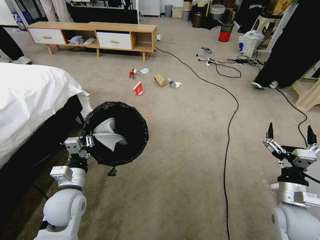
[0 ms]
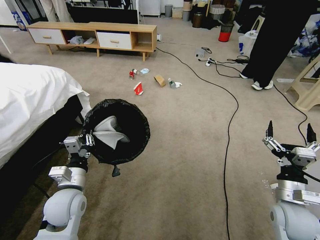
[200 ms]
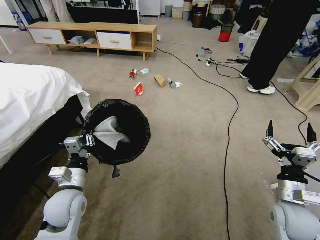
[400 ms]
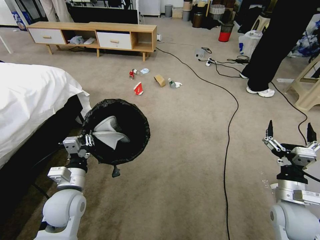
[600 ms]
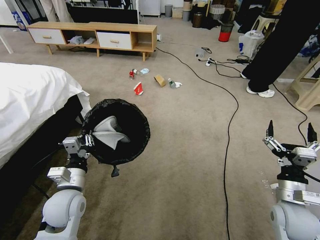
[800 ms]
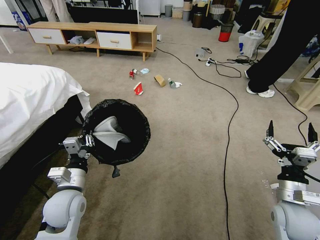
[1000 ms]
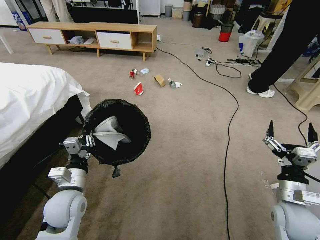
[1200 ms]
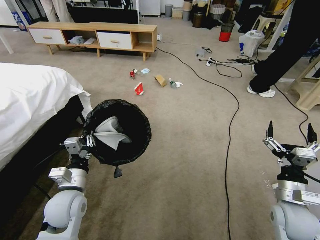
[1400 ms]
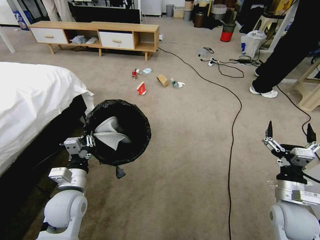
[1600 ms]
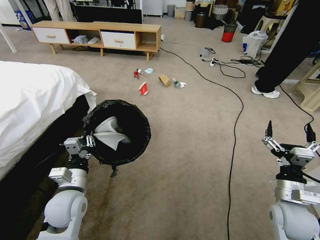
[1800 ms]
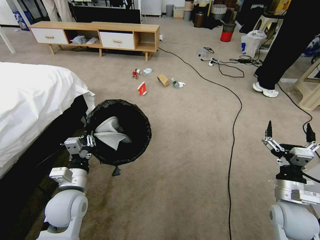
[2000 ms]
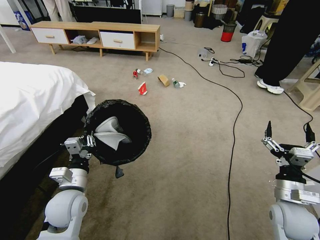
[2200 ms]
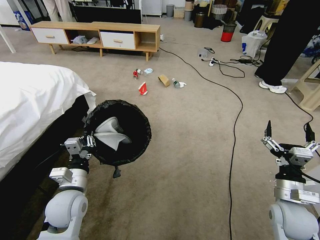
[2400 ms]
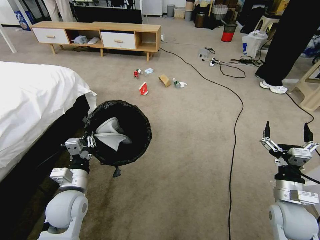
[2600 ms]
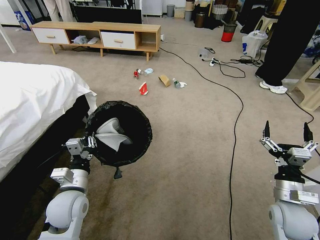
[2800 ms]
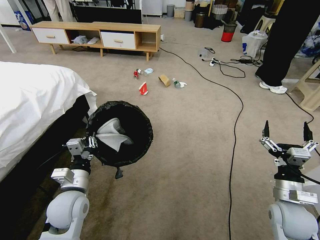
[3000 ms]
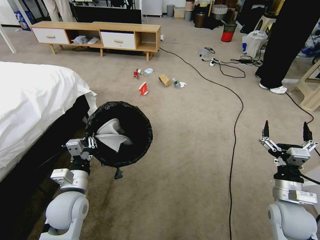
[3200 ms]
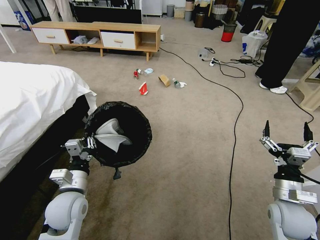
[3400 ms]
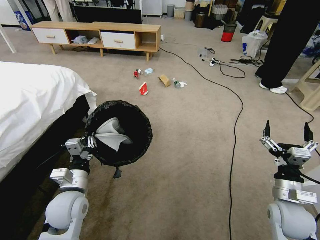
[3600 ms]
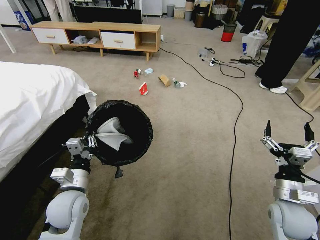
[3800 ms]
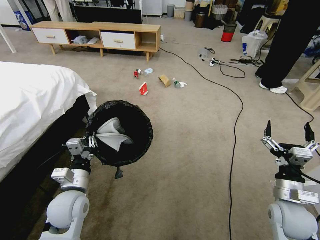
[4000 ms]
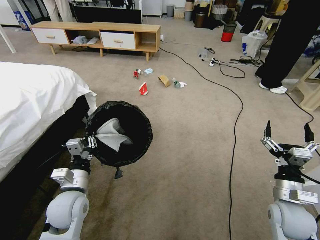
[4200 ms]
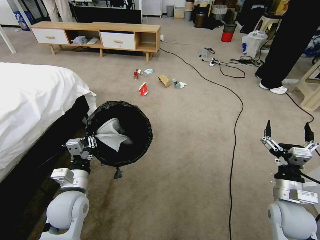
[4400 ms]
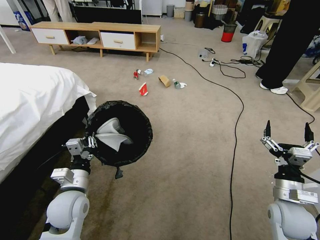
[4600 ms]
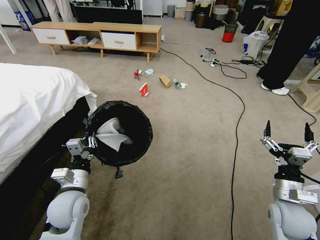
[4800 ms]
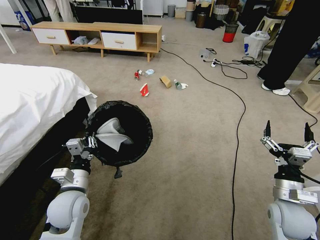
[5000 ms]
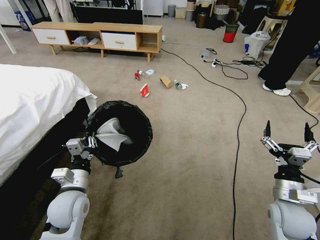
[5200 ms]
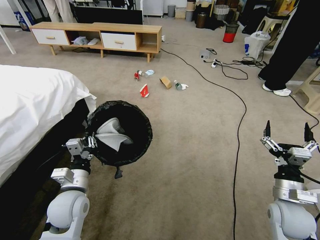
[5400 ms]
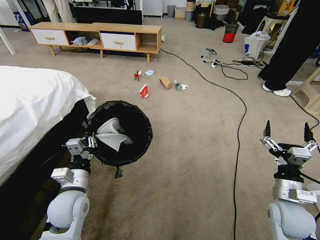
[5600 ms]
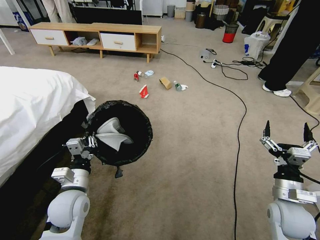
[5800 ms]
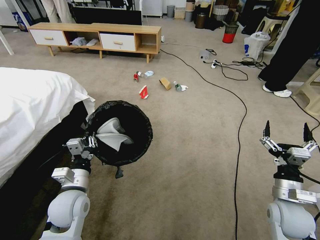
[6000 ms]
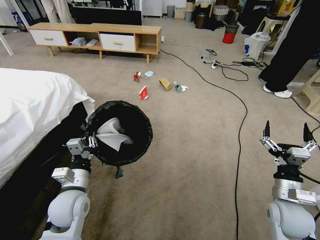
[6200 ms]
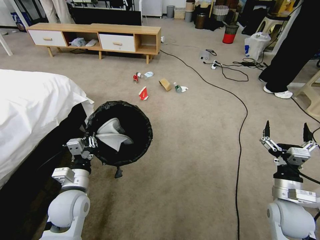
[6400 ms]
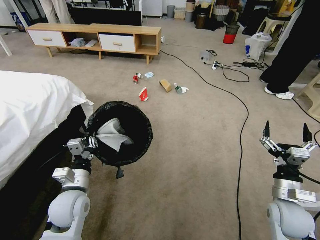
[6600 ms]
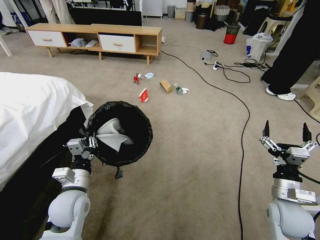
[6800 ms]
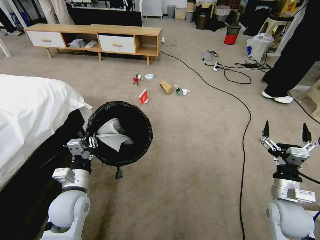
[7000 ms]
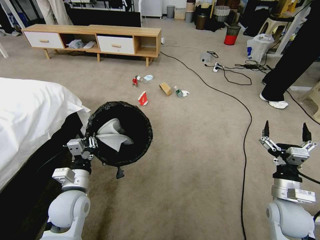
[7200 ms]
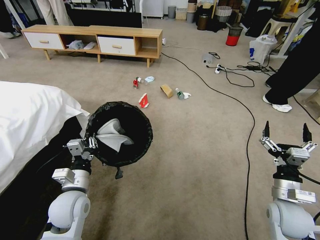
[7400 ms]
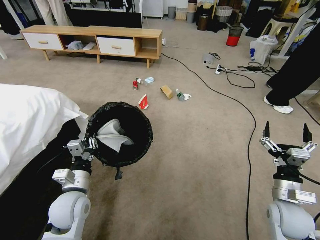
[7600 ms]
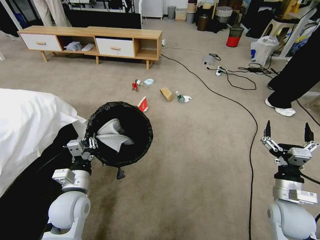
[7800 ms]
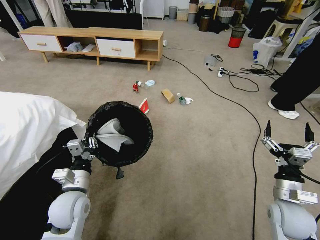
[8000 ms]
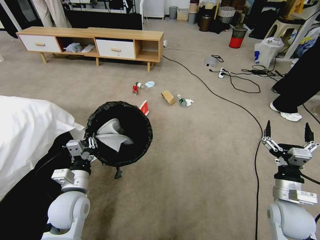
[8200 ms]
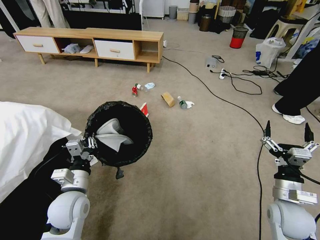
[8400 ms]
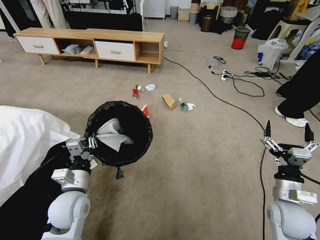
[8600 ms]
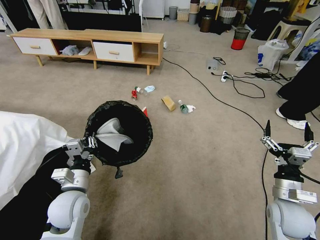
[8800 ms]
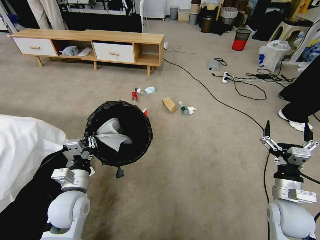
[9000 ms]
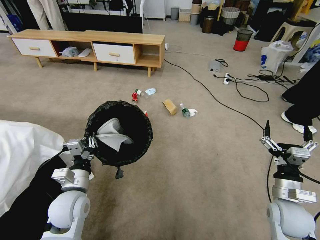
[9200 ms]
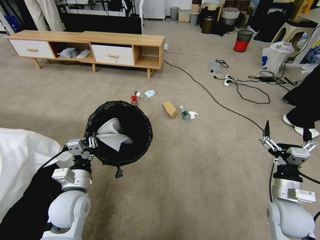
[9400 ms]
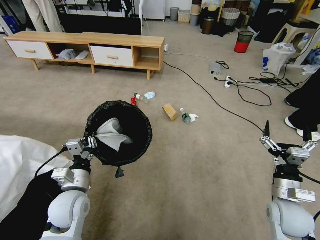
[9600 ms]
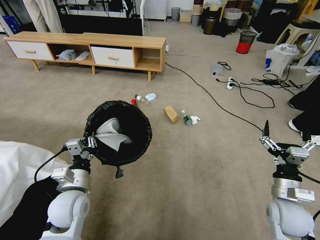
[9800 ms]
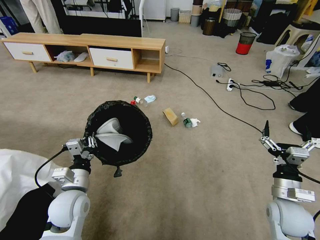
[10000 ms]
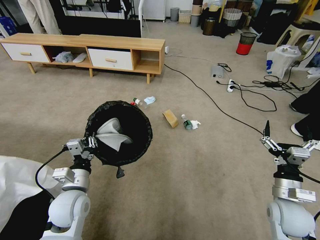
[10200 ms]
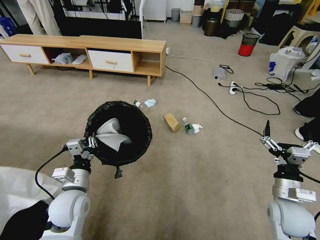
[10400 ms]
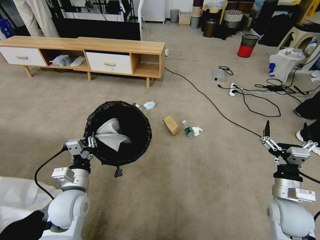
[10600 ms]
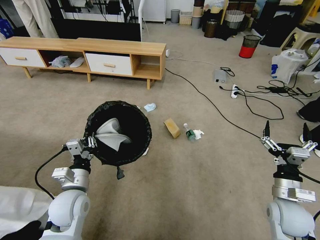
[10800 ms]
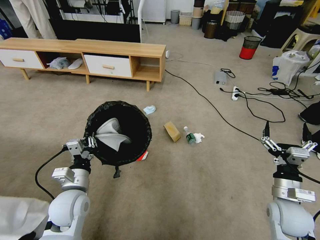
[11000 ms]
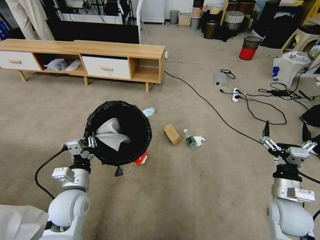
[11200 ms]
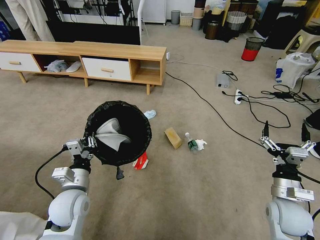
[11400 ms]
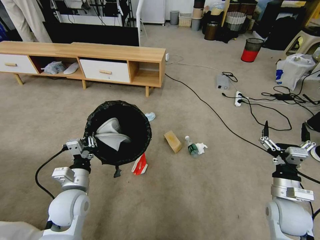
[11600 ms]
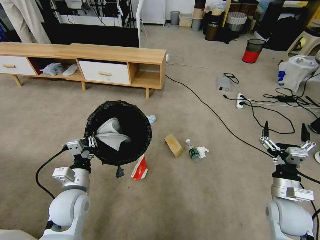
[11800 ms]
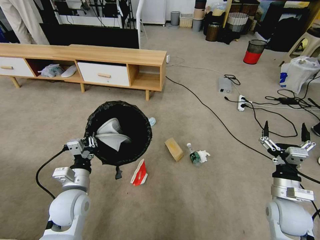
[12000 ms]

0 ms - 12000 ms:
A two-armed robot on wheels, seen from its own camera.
Task of the whole recording: Pick up the trash bin and place the garbage on the floor into it.
1600 ms - 6000 ms: The two grippers keep their place.

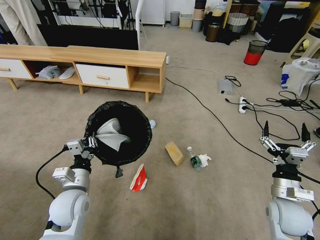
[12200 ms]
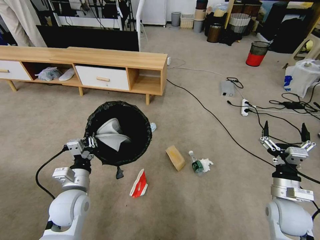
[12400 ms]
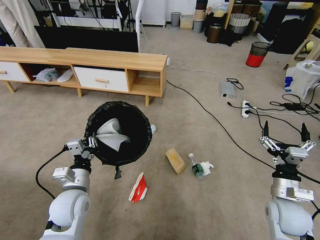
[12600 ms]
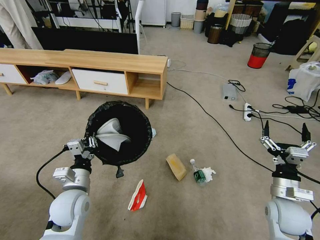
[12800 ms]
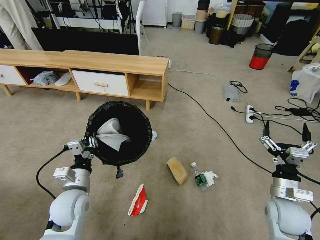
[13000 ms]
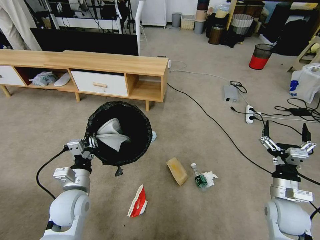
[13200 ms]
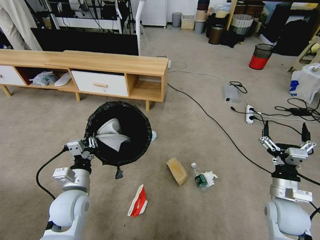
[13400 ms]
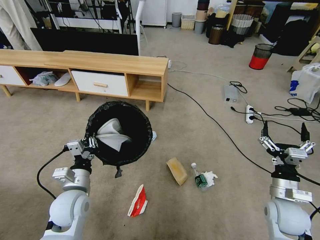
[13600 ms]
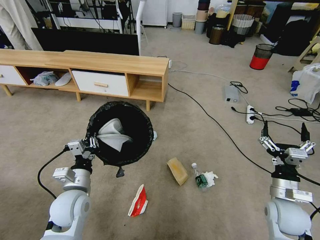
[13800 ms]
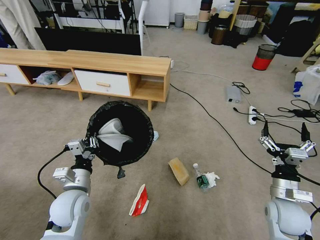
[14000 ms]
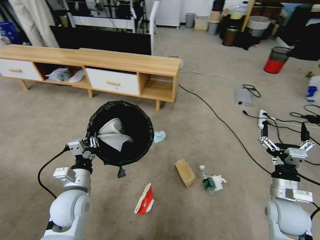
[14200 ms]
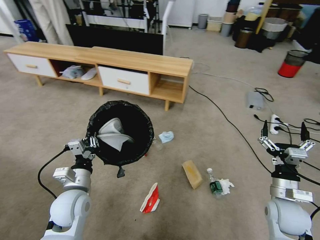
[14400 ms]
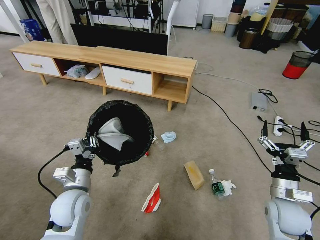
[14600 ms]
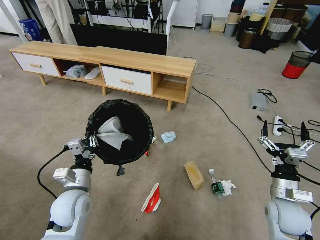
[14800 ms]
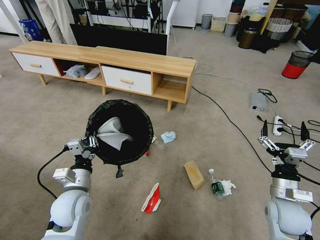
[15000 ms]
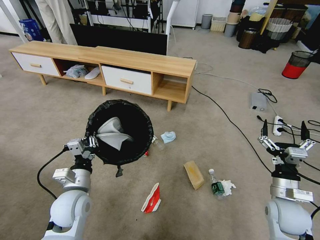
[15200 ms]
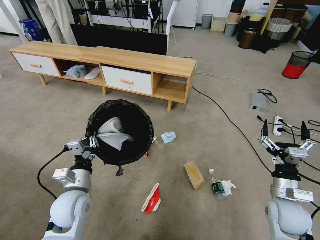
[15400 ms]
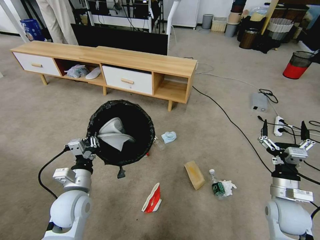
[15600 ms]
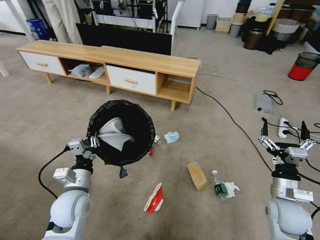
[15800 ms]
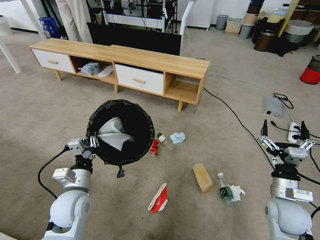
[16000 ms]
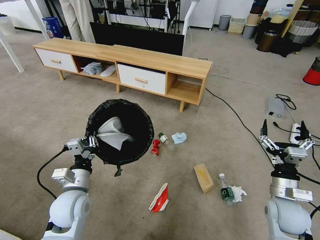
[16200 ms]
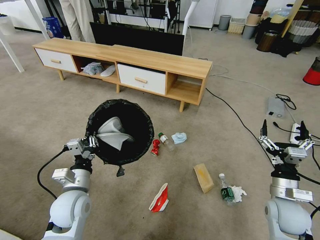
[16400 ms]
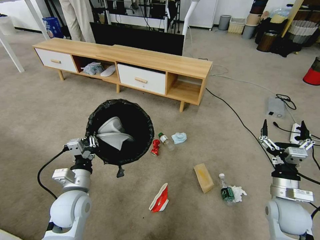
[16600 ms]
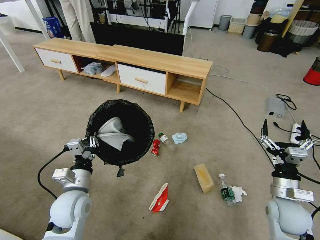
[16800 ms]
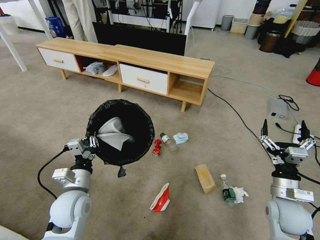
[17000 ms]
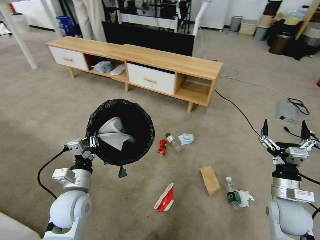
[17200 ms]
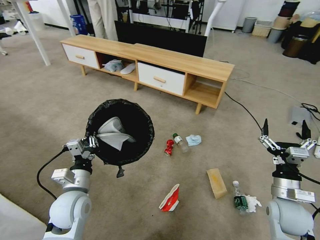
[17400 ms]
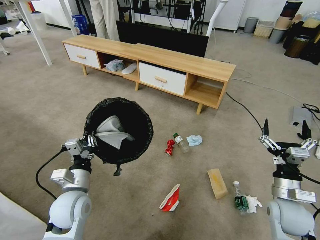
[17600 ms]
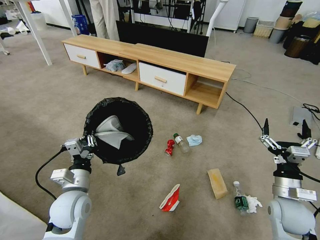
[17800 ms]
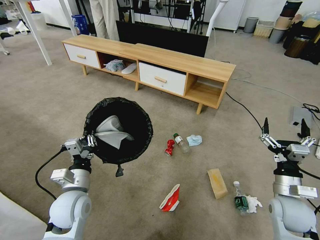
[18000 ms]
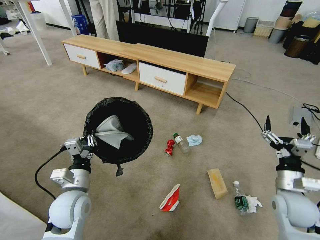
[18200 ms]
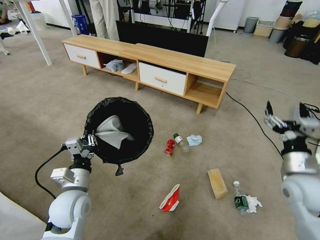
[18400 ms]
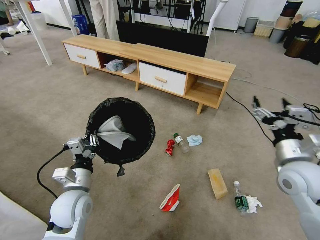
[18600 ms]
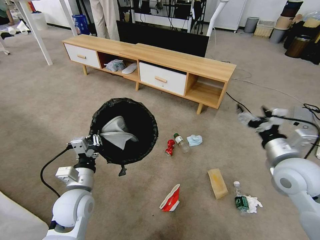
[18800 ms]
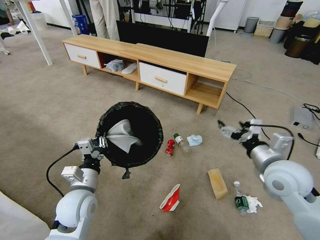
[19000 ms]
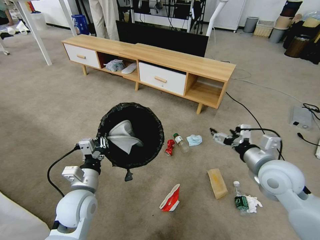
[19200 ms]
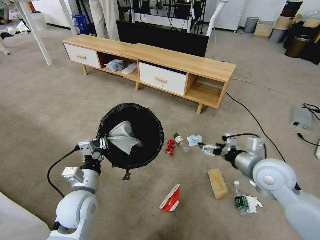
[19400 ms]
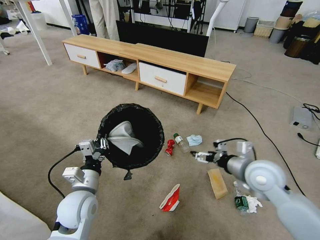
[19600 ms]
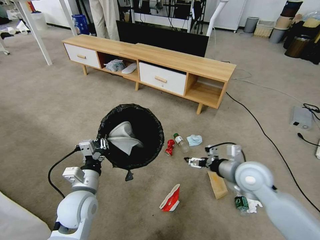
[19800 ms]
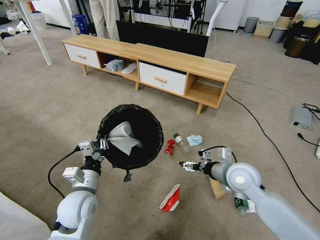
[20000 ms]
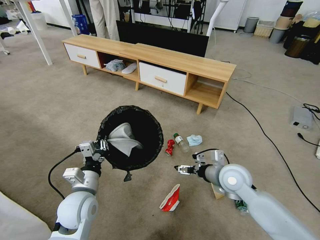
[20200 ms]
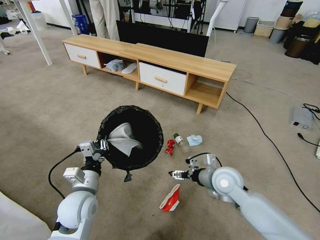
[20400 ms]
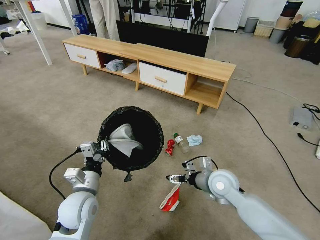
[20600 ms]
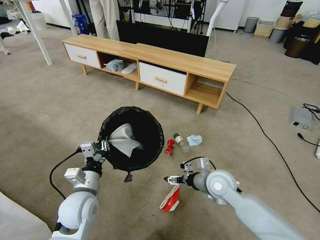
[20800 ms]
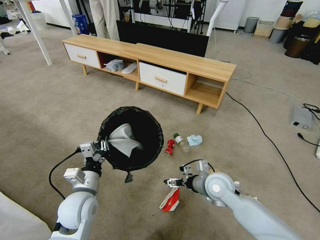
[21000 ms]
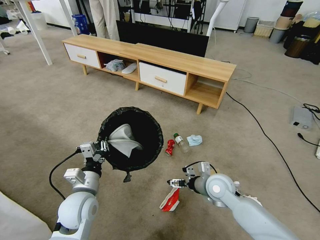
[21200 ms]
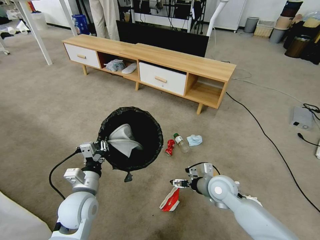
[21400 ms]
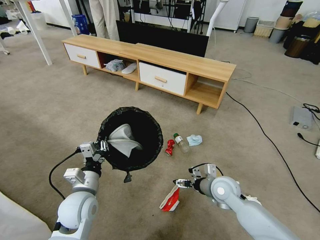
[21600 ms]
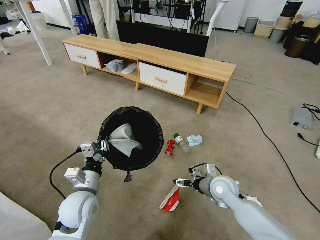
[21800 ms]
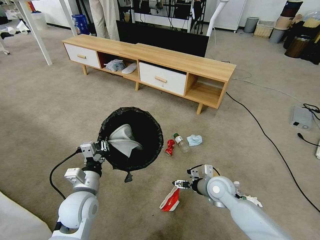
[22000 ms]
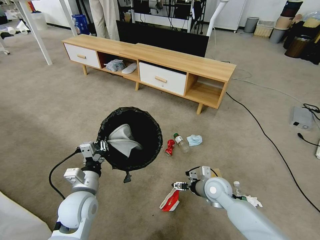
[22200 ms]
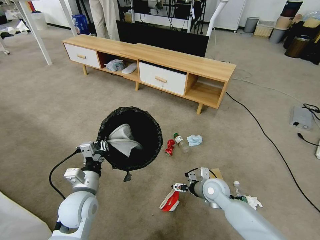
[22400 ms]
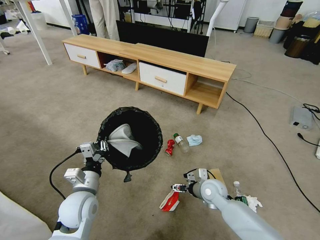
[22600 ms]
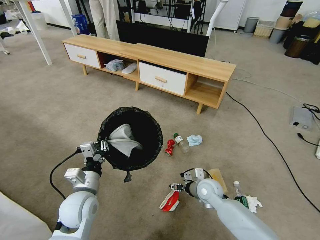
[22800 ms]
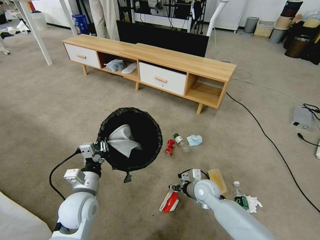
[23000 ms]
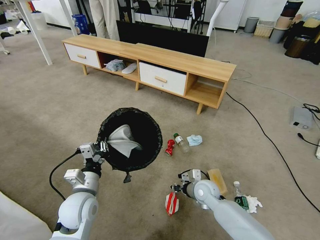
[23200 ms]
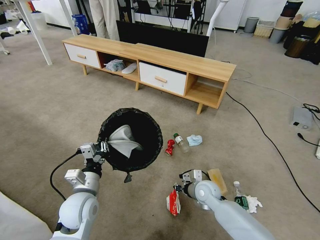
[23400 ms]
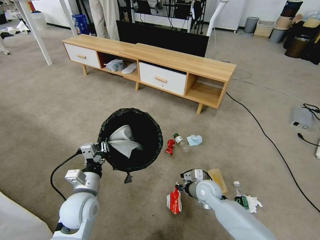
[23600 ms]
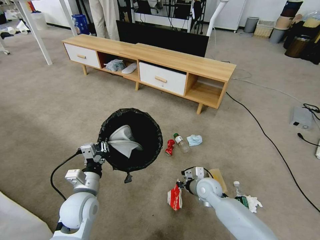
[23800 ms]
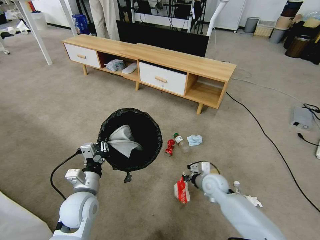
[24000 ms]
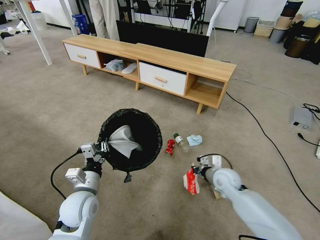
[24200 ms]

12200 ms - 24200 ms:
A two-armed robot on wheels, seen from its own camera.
Task of the whole recording: Pick up the trash bin and place the garbage on the floor into it.
18200 ms - 19800 ms: The right gripper moves to the left, forward and upward, roughly 15 cm.
19800 ms - 21200 ms: The right gripper is displaced downward and to the left by about 10 cm.
21200 ms - 22600 ms: The right gripper goes approximately 5 cm downward.
22600 ms - 24200 ms: The right gripper moves roughly 5 cm, and closes up.
